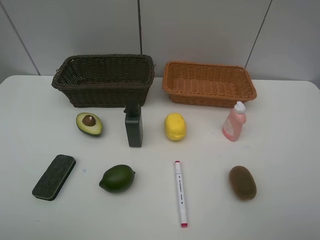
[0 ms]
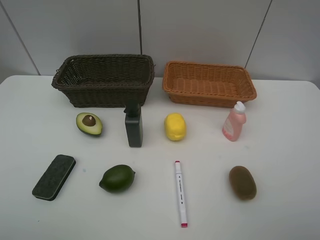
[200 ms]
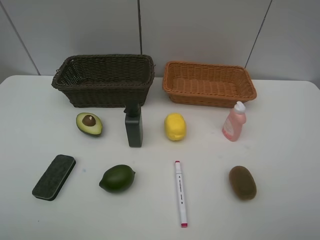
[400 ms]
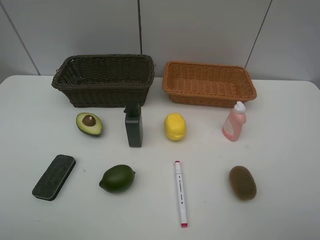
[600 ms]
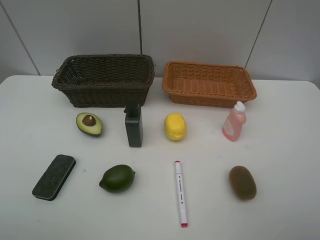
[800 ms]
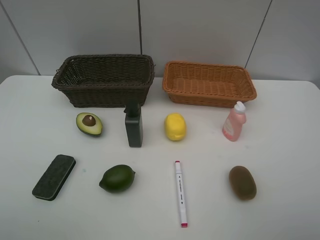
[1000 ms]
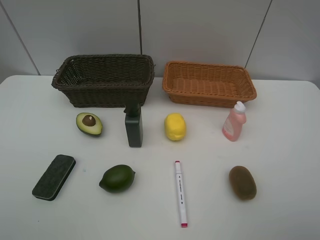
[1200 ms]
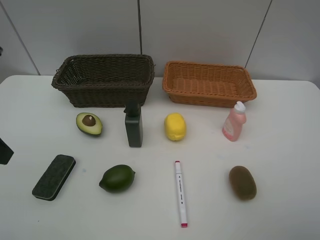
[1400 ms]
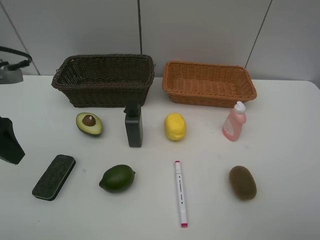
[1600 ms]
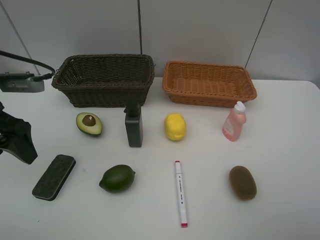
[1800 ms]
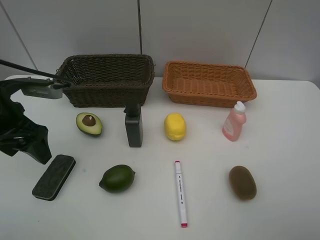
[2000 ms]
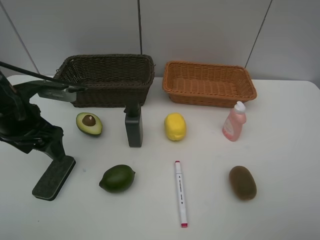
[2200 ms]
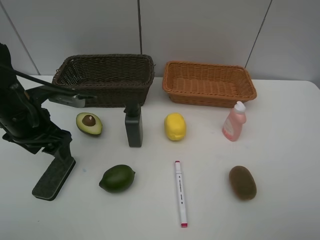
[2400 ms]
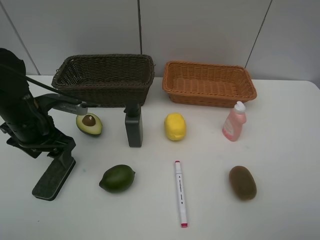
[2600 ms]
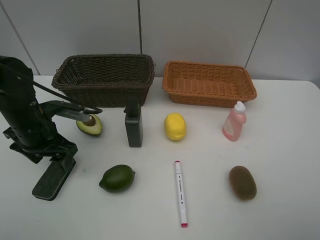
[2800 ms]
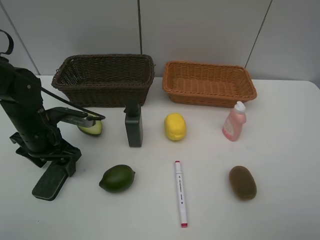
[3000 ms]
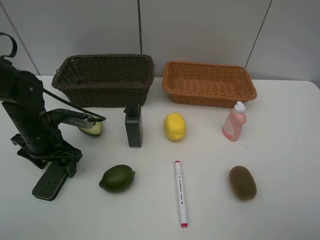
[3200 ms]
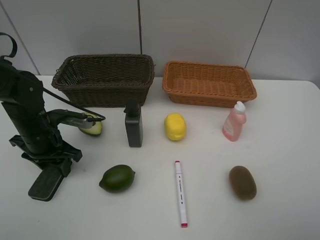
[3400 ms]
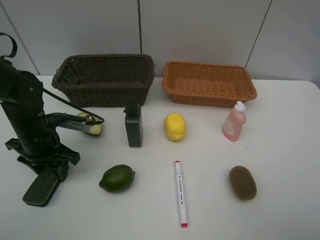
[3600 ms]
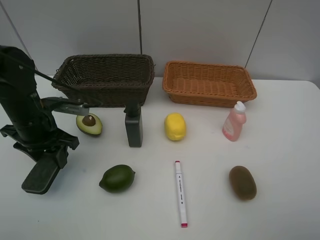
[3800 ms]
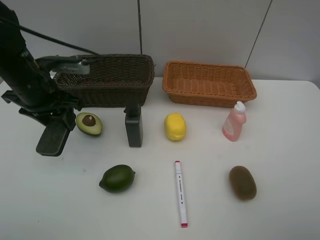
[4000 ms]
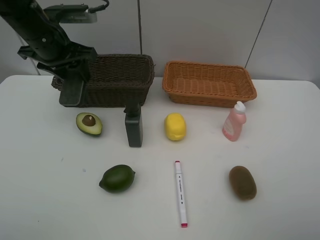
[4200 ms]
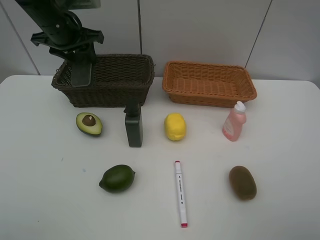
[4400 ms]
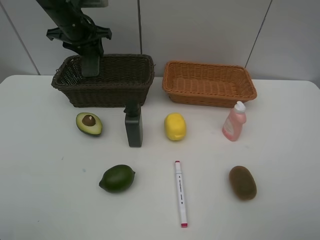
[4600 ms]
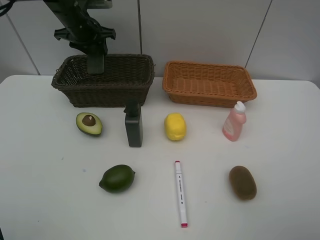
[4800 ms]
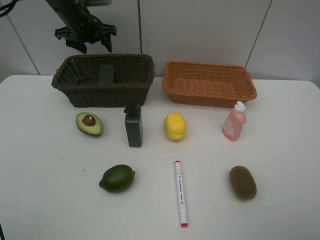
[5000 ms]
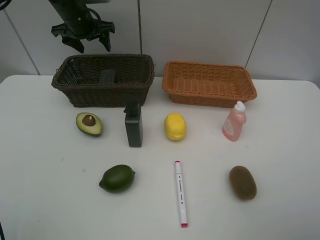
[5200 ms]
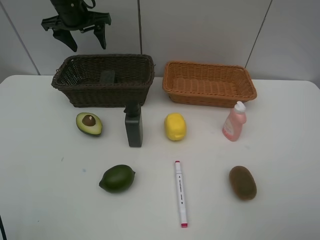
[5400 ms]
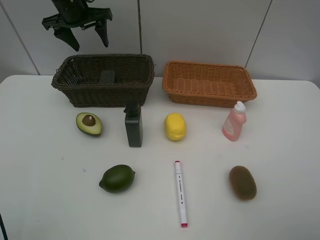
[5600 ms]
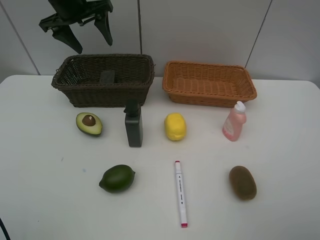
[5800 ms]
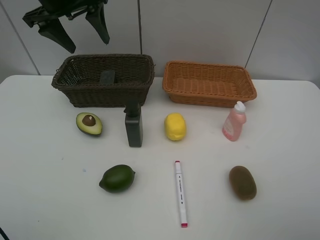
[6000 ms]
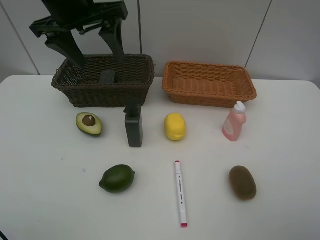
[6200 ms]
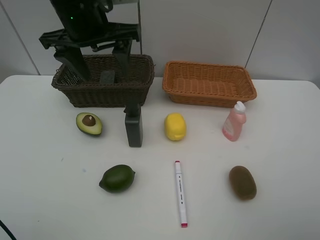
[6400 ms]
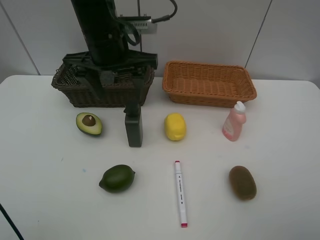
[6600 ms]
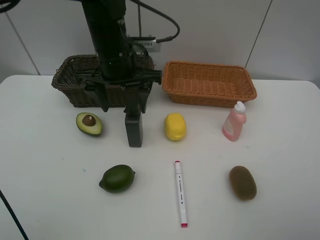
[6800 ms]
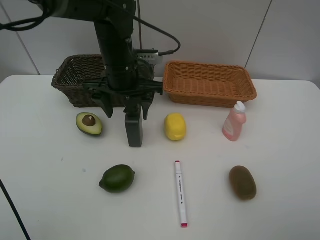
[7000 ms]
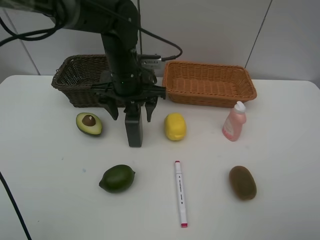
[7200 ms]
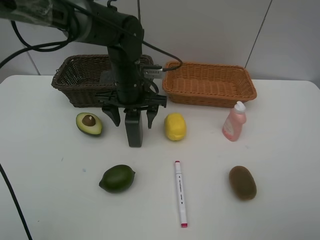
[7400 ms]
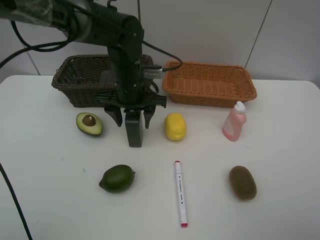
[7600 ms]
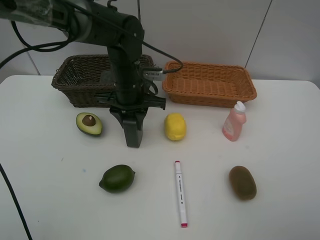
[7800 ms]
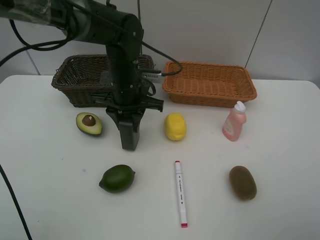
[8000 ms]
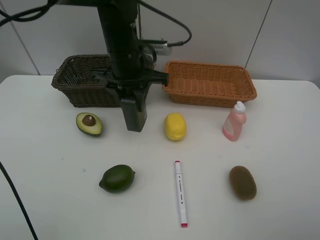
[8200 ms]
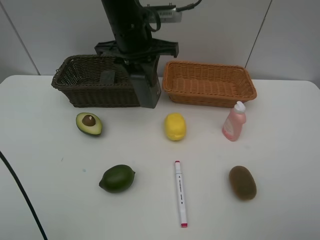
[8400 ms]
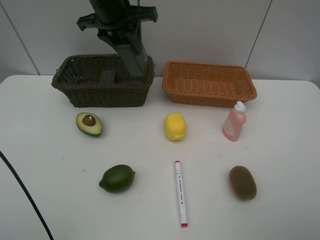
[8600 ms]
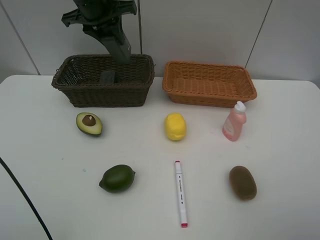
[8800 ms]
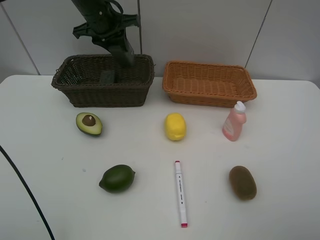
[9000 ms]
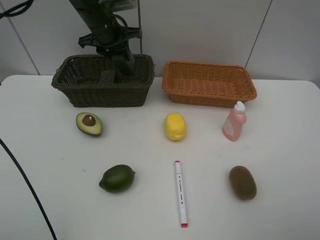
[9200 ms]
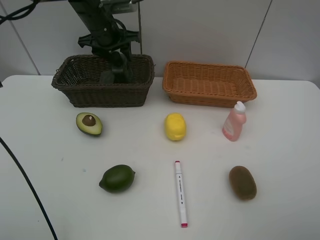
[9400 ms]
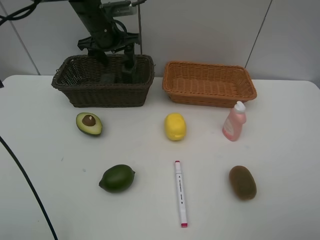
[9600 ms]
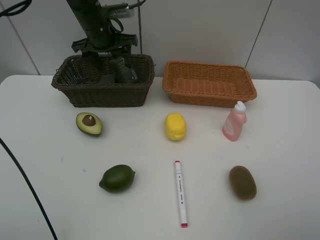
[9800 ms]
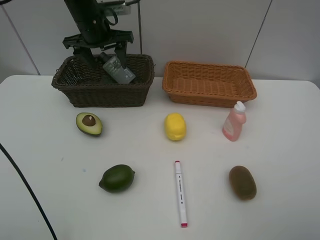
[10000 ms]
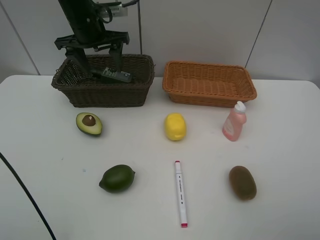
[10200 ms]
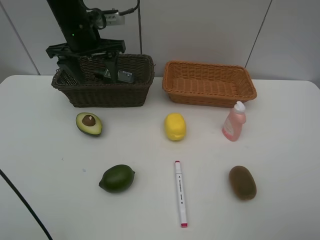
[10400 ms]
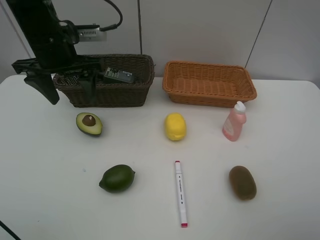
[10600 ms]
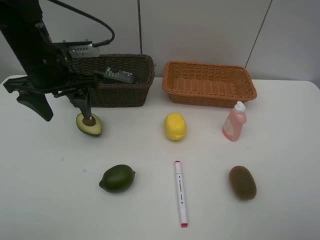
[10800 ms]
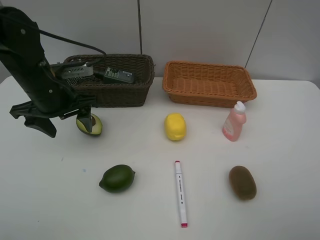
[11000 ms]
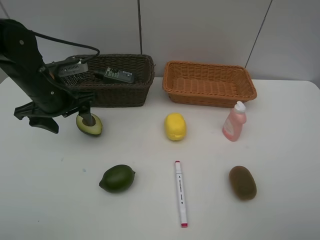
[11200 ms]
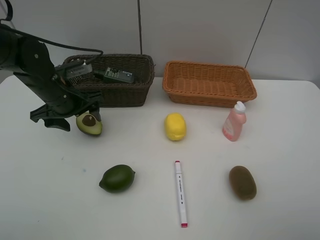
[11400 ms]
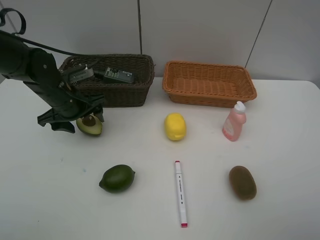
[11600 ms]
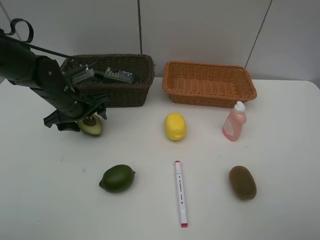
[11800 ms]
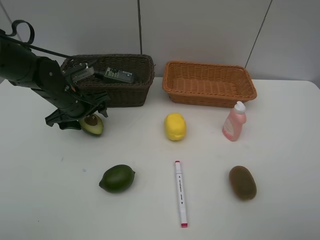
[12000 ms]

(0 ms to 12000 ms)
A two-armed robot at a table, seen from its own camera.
Task of the whole recording: Place multiple objects separately in different baskets.
Step, 0 ms - 3600 ms: Pick up blackboard eraser with left gripper.
Step, 3800 ms - 5200 ms: Place the blackboard eraser in the dark basket with left gripper.
Step, 5400 ms - 8000 ms: Pick up the hard facial cleanser with left gripper.
Step, 8200 ms - 9800 ms: Place the hard facial cleanser in the dark basket with left gripper.
0 ms - 1600 ms: The left gripper shifts some 20 cm forward.
1600 ms - 3000 ms: The left gripper travels downward and forward by about 15 cm.
3000 ms - 4400 ms: The left gripper travels forward and upward by some 25 cm, and closes.
4400 ms - 6000 ms: The left gripper is displaced upward and backward by roughly 10 cm, and opens.
6000 ms - 7600 ms: The left gripper is displaced downward and to the right by about 20 cm, and closes its fingers.
7600 ms - 9000 ms: The left gripper moves forward, upward and to the left, about 15 cm, and closes up.
9000 ms - 10400 ms: The left gripper travels backward by roughly 5 cm, and opens its fingers.
10400 ms - 12000 ms: The left gripper is displaced downward by about 15 cm.

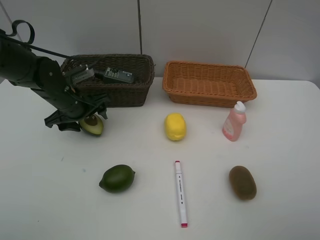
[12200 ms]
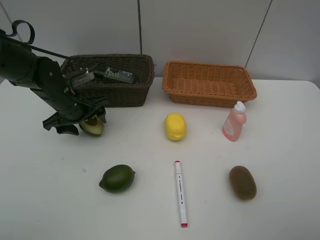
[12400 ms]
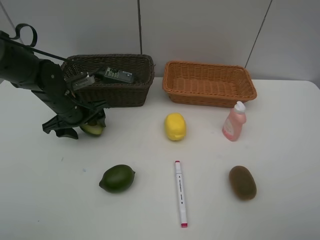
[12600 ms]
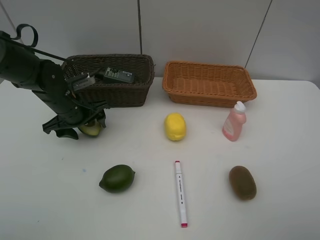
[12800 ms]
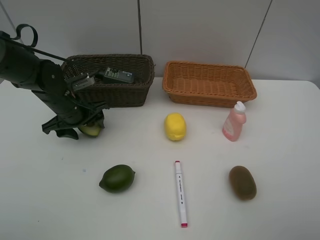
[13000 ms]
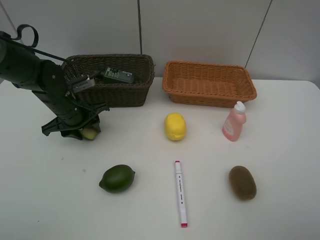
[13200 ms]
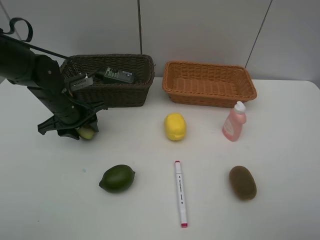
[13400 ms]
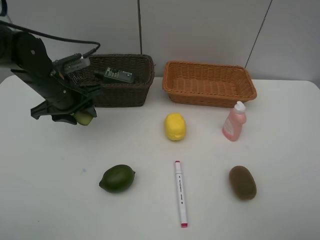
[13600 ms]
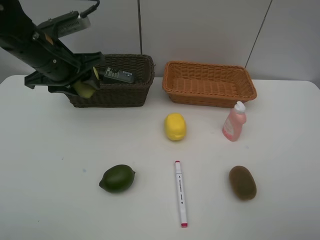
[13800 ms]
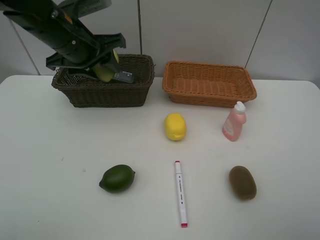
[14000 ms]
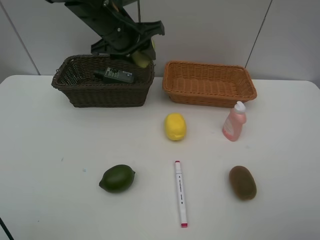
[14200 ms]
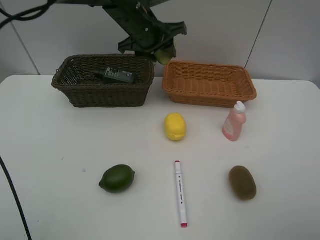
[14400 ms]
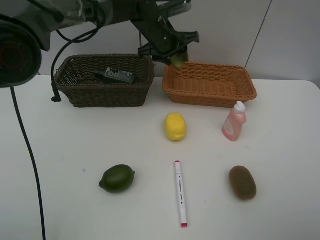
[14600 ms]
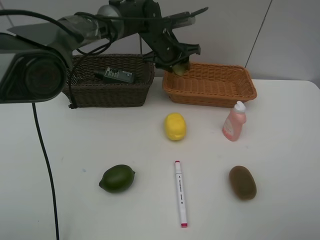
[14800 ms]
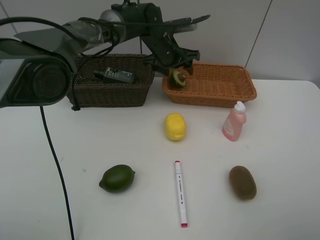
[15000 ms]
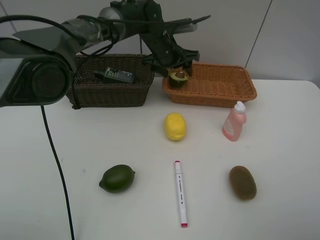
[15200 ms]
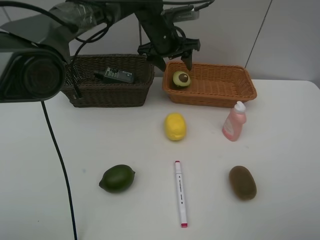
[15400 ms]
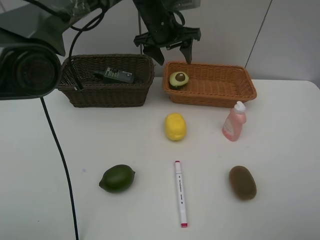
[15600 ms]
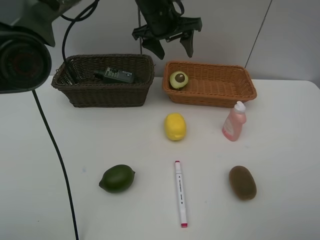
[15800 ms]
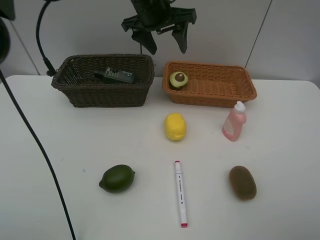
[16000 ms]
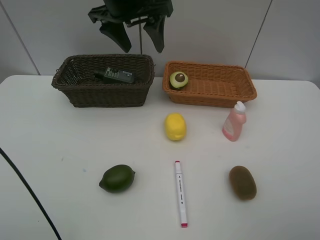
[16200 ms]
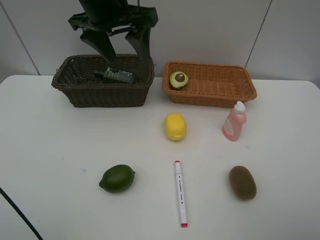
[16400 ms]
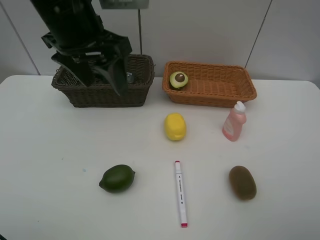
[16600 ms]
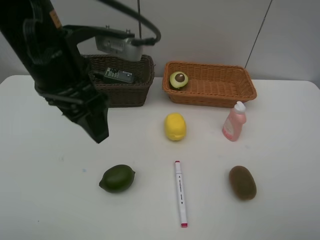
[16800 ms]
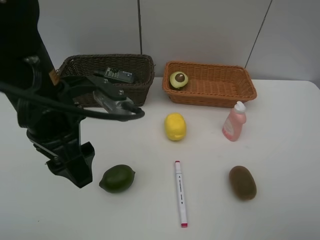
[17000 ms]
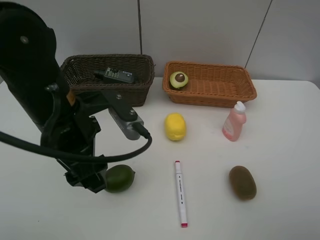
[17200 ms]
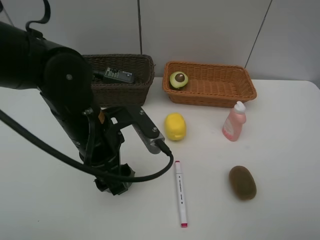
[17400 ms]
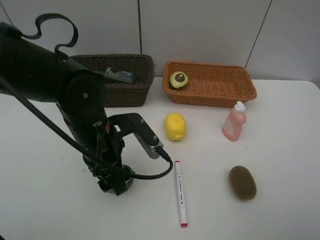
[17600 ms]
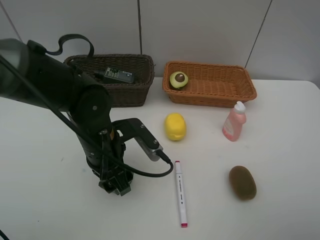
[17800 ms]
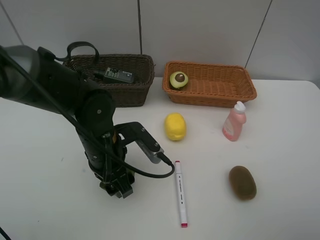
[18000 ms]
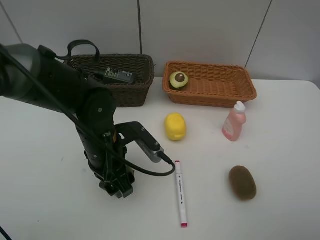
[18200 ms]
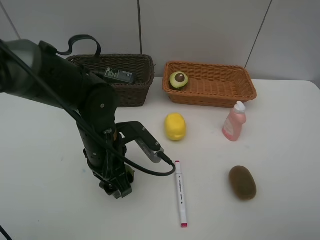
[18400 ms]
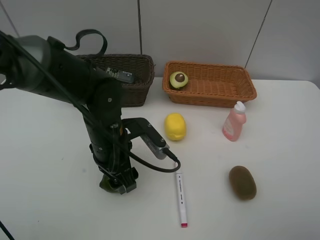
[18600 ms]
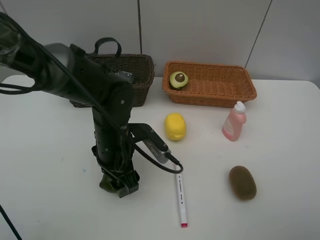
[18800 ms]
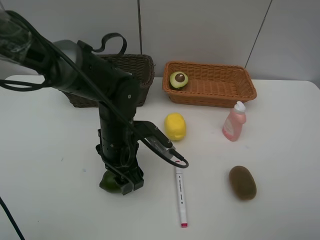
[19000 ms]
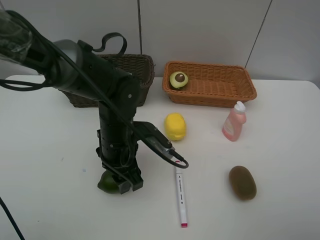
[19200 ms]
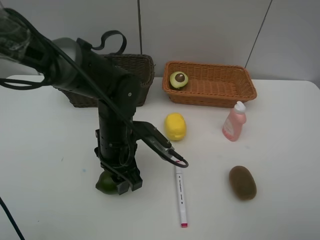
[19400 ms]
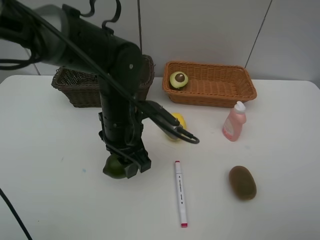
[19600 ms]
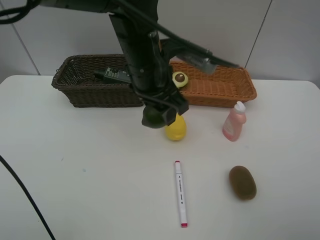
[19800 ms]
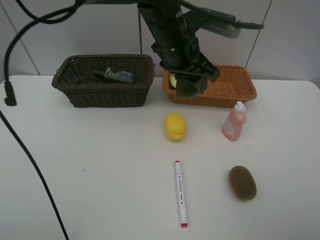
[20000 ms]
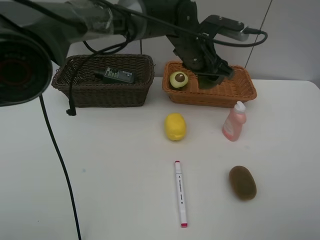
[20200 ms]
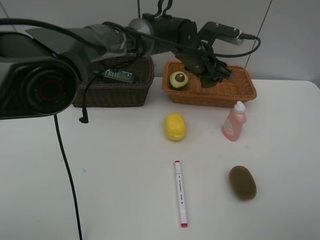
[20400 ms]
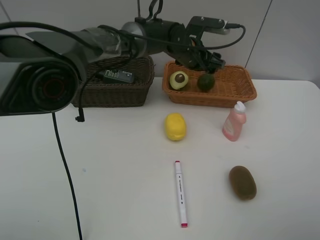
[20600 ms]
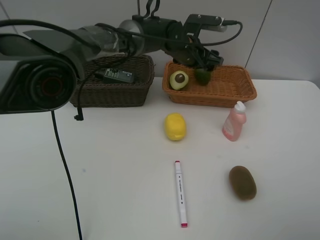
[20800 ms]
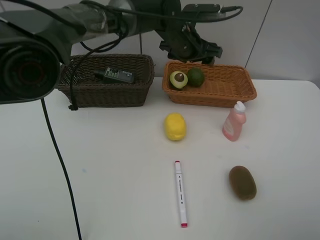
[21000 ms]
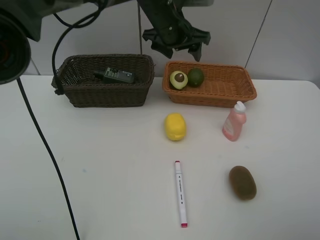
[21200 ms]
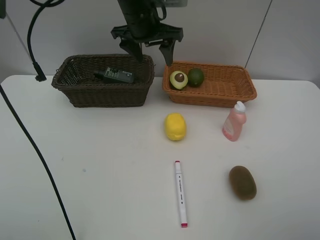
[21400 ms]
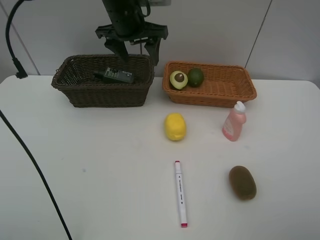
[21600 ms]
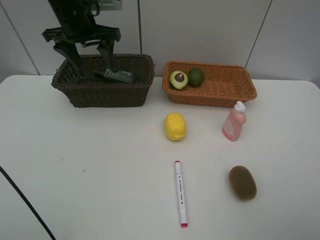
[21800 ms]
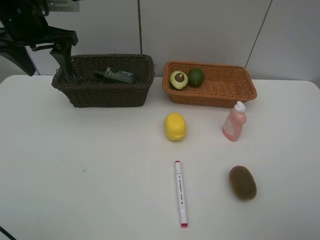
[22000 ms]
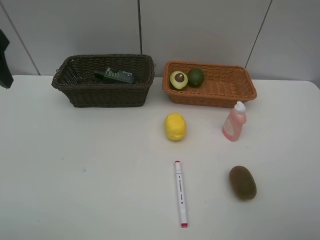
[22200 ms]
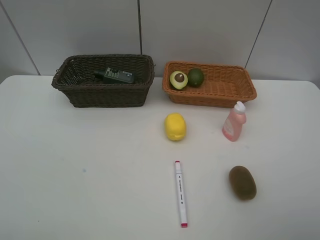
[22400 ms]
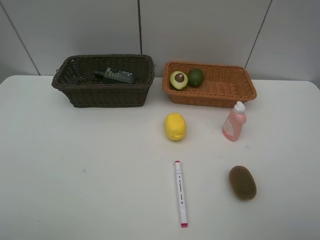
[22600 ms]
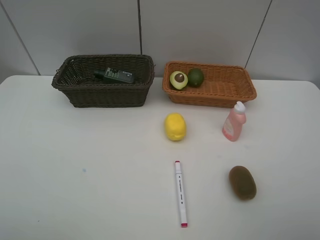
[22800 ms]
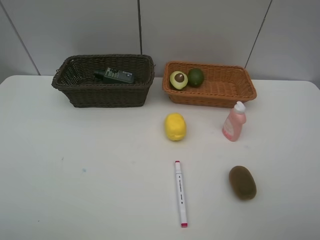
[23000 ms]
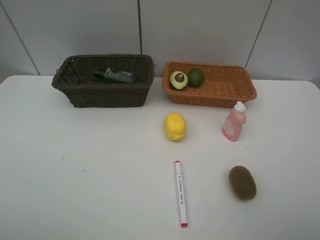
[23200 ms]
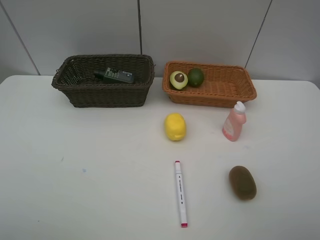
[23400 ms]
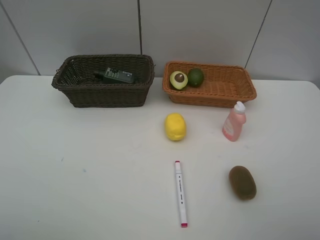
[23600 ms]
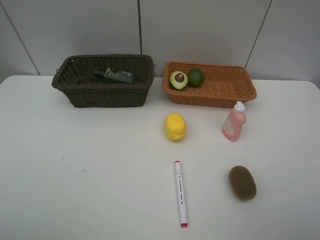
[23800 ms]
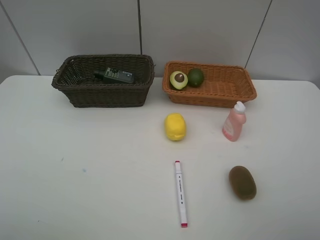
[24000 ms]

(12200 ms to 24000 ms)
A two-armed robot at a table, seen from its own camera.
Task of the whole recording: Place multiple objects separately in different baskets.
Step, 13600 ms - 15200 ms: Place the avocado in the light basket with left gripper.
Step, 15400 ms - 19600 ms: Pick up the lime with left gripper.
Step, 19800 ms - 20800 ms: Place the lime in the light basket with left gripper.
12200 ms - 13600 ms: The left gripper goes roughly 5 cm upward, and closes up.
13600 ms - 15200 ms: The left gripper moves to the right and forward, some 25 cm, and opens its fingers.
15200 ms - 16600 ms: The left gripper is displaced backward, upward and to the left by about 30 cm.
16600 ms - 18200 ms: The left gripper travels downward by roughly 20 cm.
18200 ms - 19600 ms: The left gripper moves upward, about 5 cm, and closes.
19600 ms - 21000 ms: The left gripper heads forward and to the right, covering roughly 20 cm, and opens up.
21000 ms - 22600 ms: The left gripper shifts about 50 cm backward and to the left.
